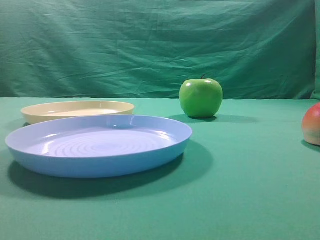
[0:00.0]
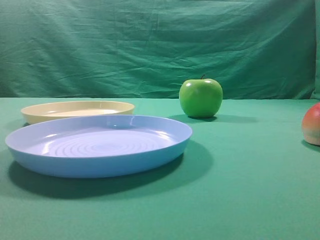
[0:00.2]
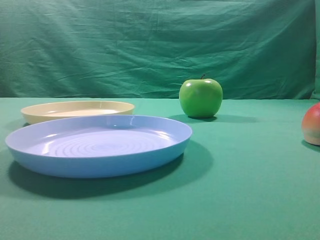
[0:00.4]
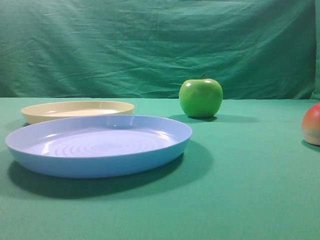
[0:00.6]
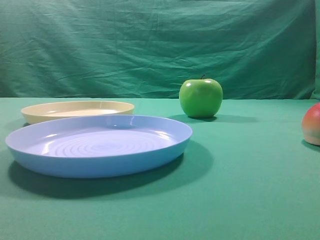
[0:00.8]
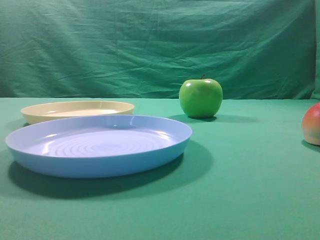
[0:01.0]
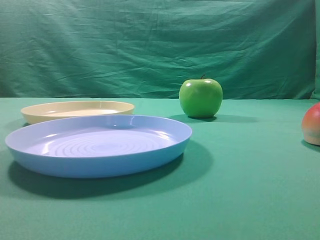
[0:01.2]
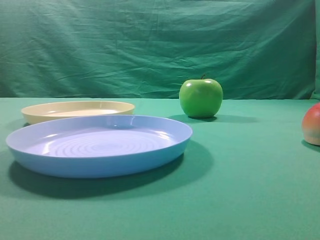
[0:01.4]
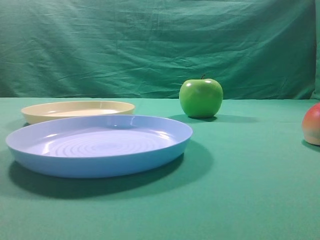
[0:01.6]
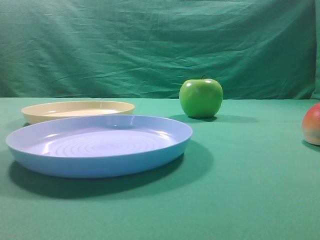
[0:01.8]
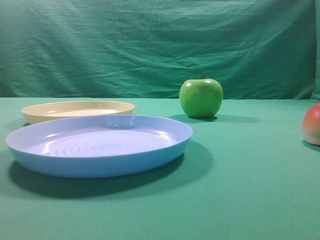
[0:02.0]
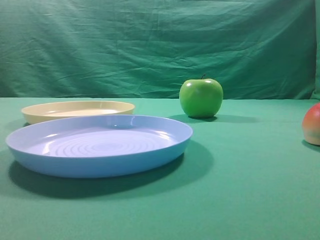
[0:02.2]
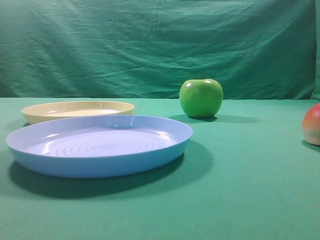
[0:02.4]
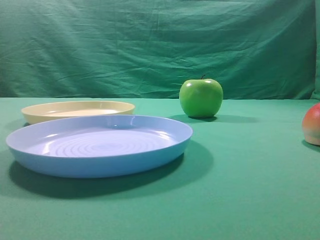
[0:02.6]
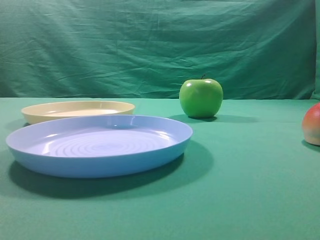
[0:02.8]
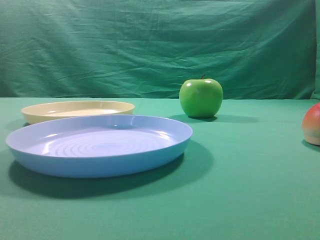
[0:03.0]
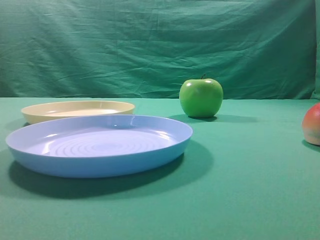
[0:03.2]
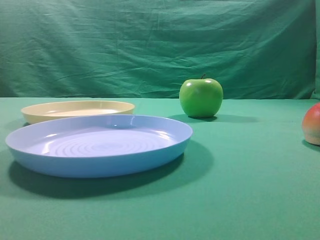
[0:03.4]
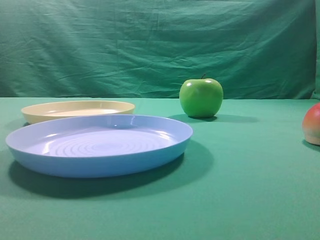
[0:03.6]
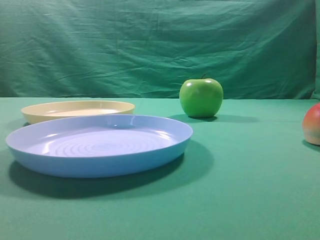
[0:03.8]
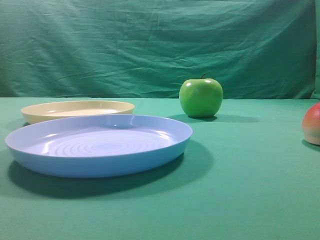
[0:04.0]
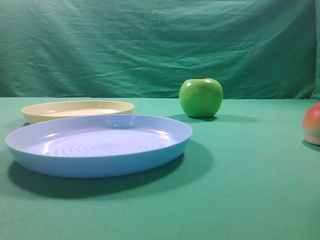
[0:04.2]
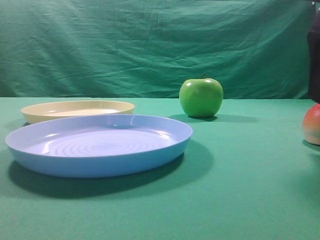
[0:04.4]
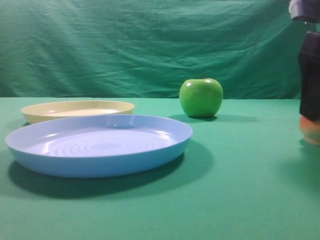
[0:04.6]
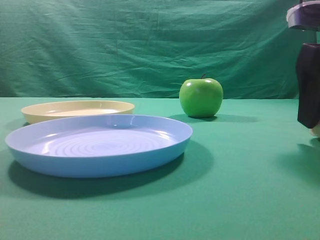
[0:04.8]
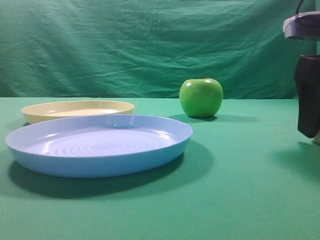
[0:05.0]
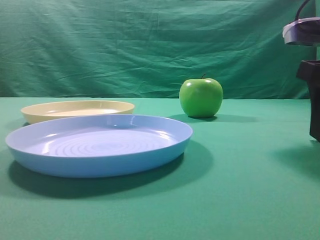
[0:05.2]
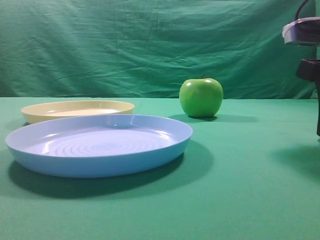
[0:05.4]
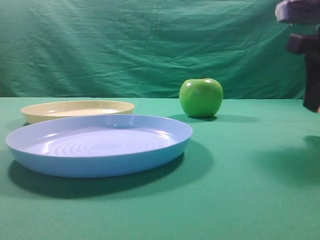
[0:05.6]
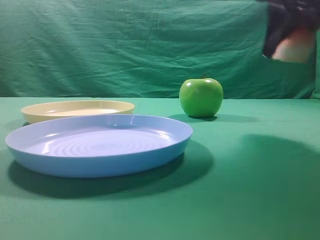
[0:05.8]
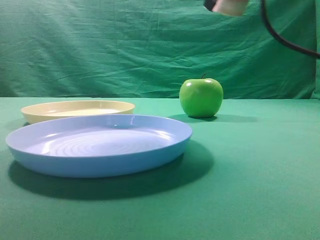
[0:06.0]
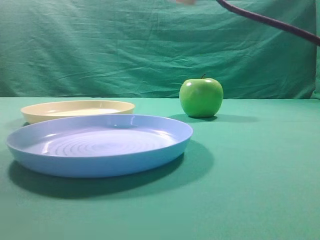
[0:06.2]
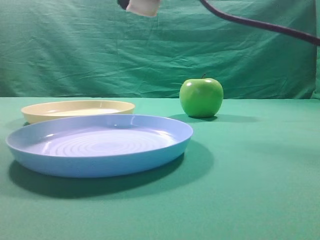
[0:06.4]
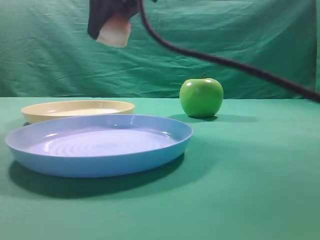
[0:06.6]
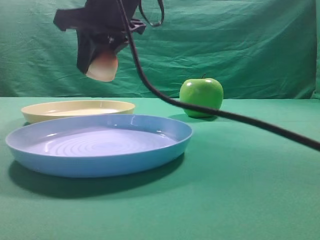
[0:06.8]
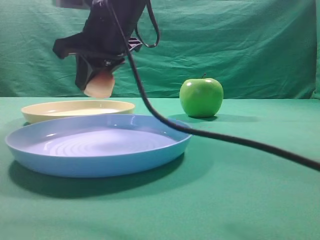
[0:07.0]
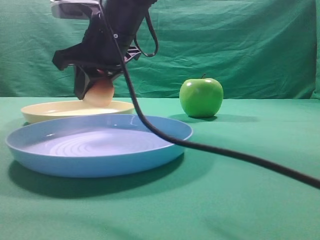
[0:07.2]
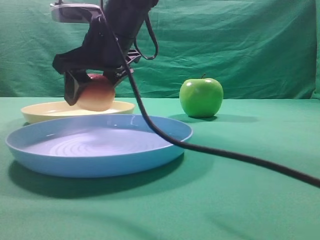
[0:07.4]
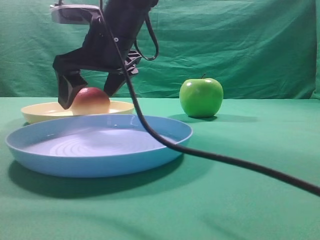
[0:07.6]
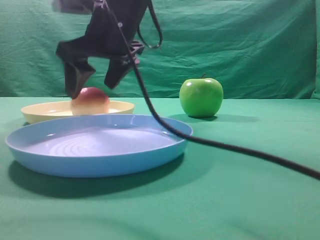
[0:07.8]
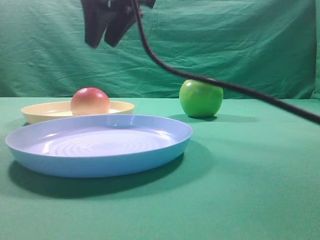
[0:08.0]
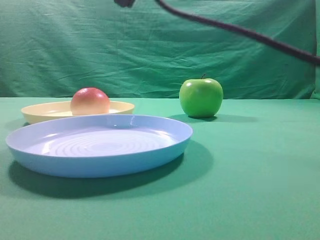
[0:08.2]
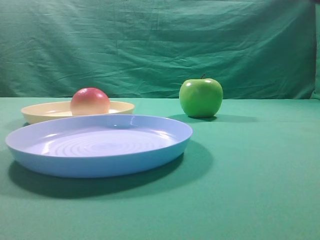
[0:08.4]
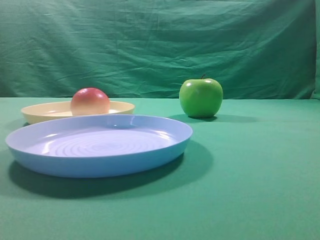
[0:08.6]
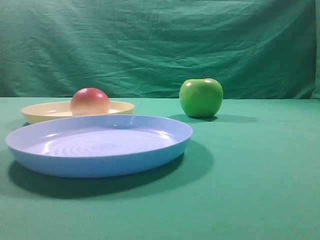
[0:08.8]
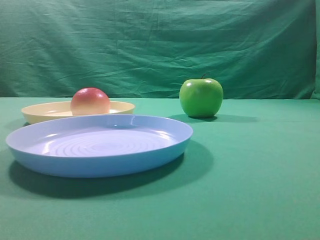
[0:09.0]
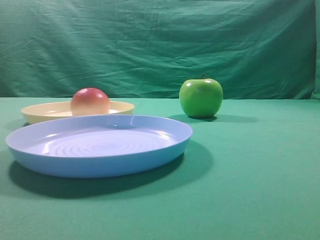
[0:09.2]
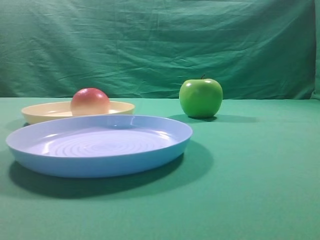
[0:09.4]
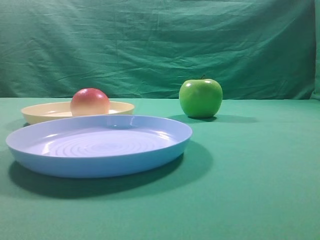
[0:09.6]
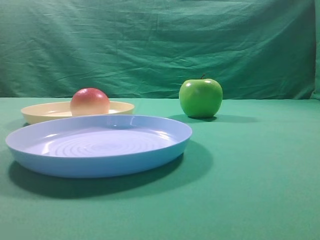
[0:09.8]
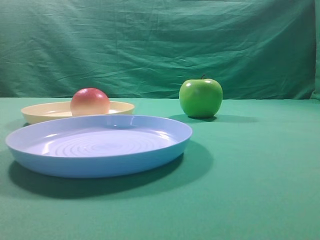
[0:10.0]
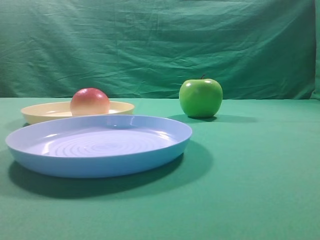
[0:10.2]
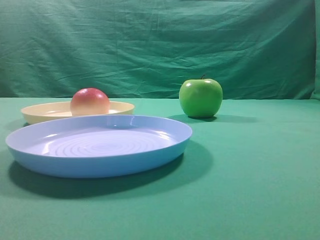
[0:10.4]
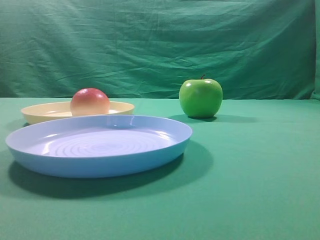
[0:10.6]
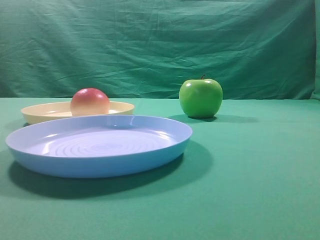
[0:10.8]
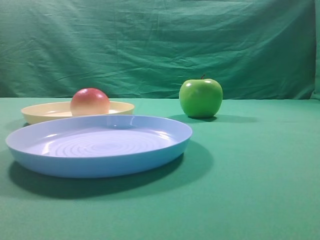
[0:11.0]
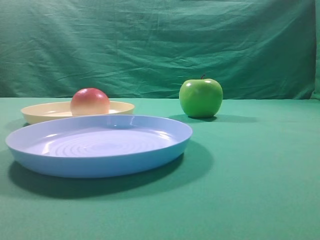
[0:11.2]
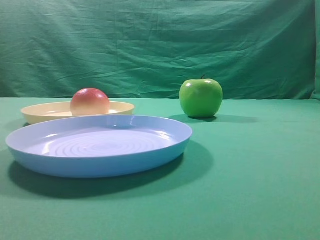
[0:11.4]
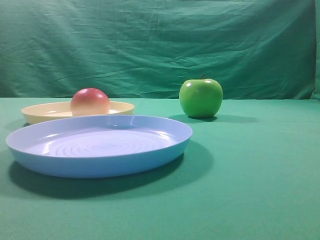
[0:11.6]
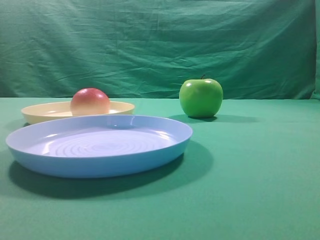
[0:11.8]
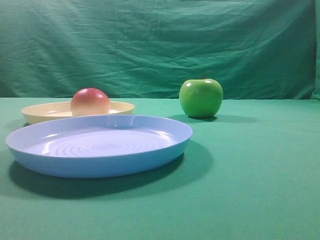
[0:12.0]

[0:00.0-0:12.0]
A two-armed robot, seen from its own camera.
Step, 0:05.8 to 0:07.8: Place the picked object on the yellow plate.

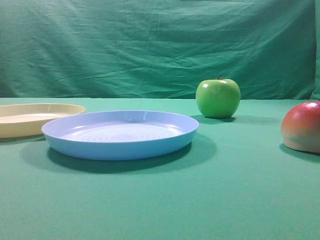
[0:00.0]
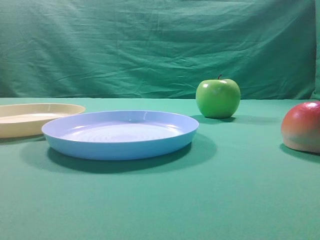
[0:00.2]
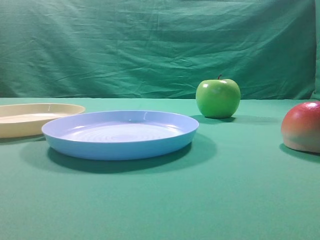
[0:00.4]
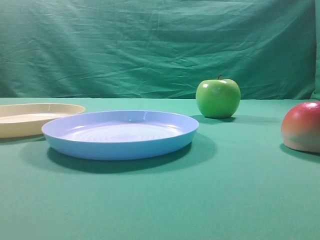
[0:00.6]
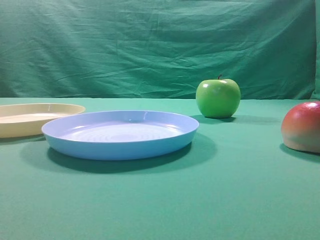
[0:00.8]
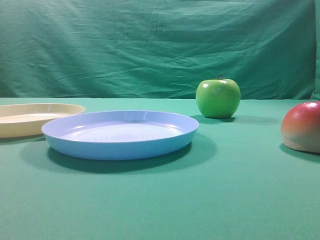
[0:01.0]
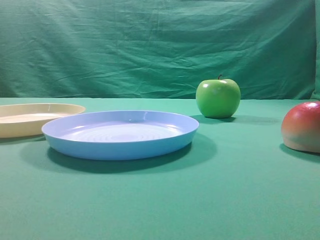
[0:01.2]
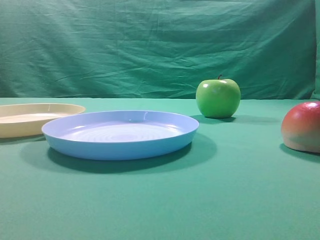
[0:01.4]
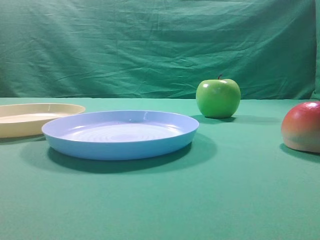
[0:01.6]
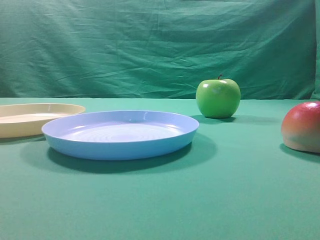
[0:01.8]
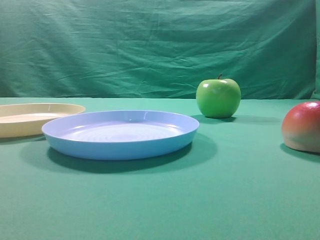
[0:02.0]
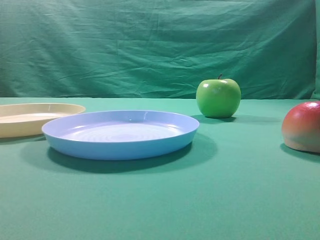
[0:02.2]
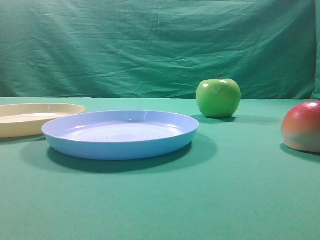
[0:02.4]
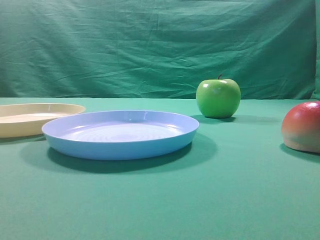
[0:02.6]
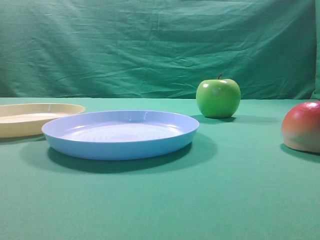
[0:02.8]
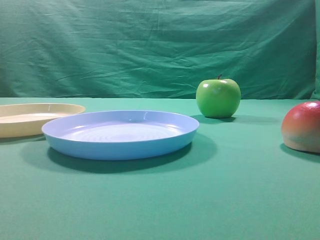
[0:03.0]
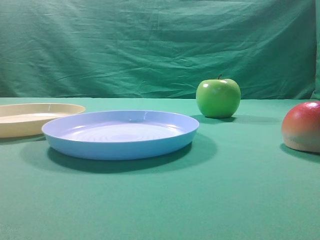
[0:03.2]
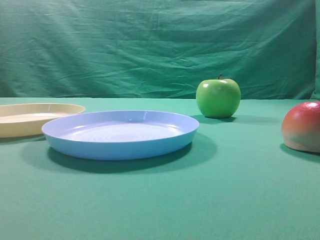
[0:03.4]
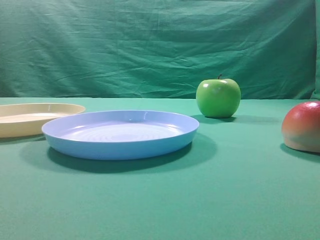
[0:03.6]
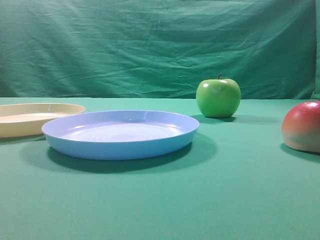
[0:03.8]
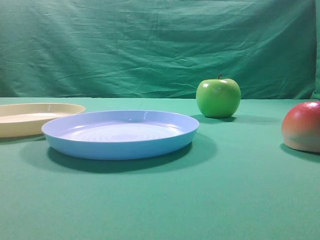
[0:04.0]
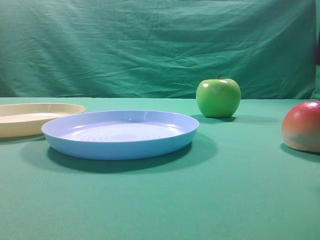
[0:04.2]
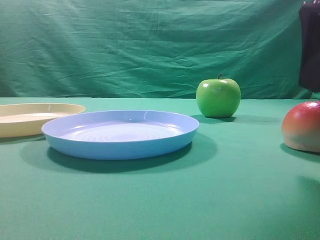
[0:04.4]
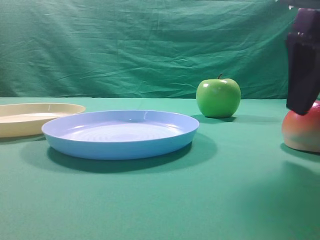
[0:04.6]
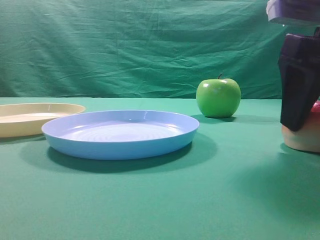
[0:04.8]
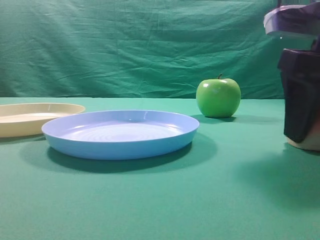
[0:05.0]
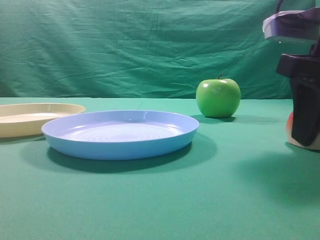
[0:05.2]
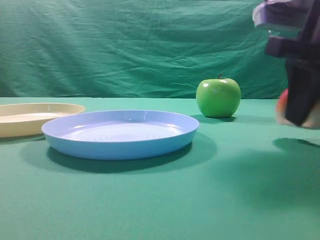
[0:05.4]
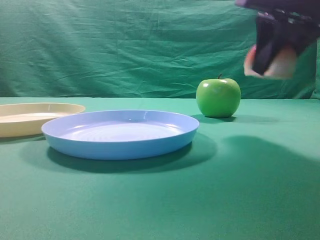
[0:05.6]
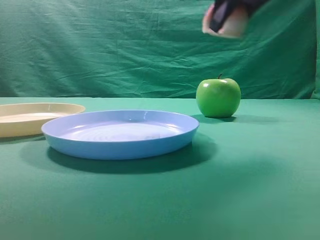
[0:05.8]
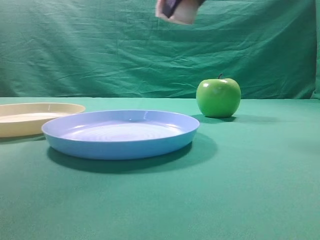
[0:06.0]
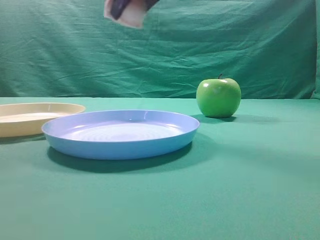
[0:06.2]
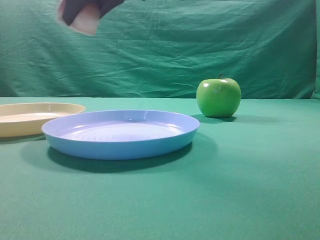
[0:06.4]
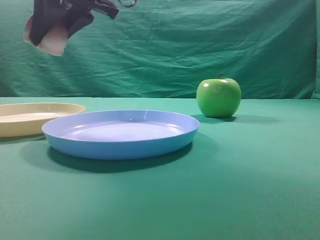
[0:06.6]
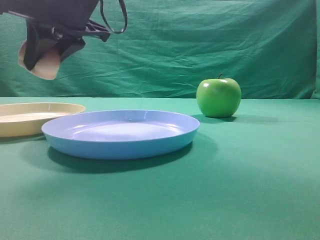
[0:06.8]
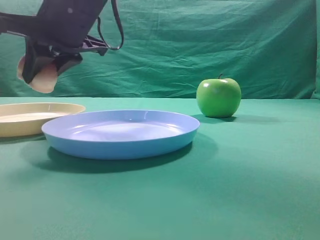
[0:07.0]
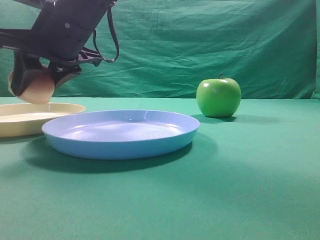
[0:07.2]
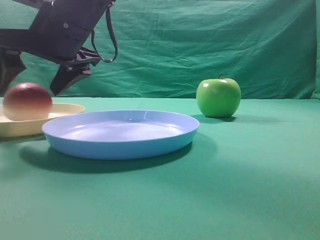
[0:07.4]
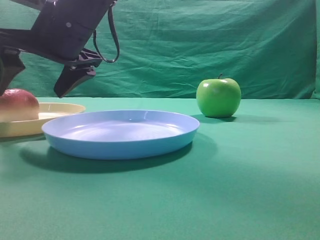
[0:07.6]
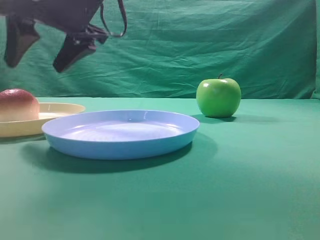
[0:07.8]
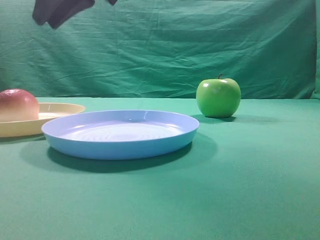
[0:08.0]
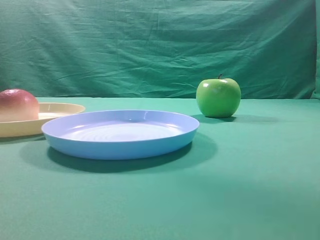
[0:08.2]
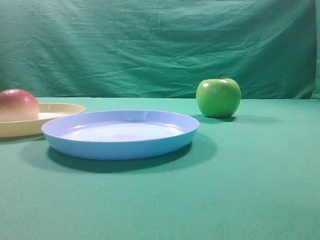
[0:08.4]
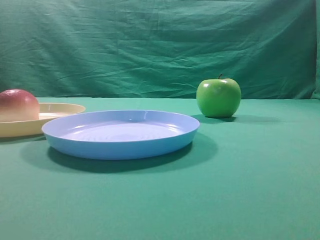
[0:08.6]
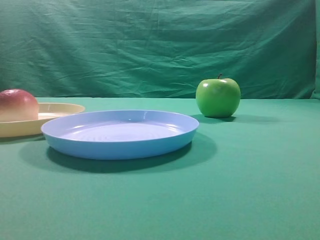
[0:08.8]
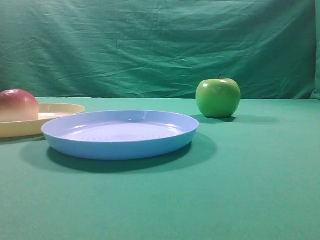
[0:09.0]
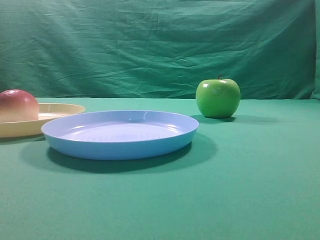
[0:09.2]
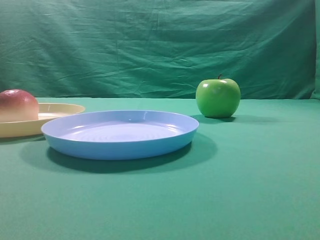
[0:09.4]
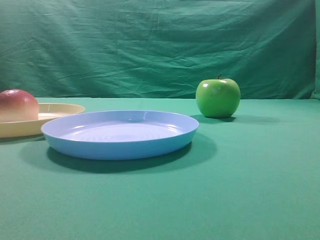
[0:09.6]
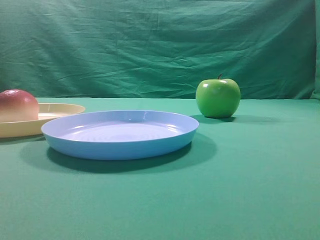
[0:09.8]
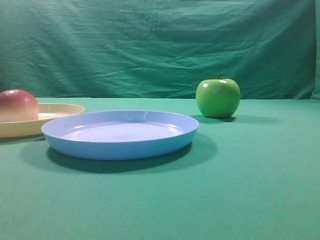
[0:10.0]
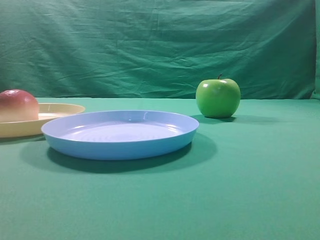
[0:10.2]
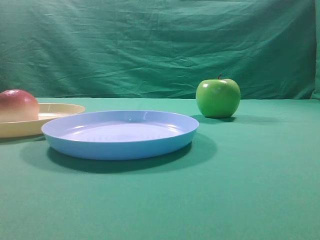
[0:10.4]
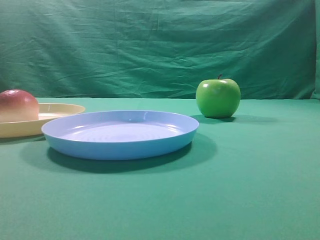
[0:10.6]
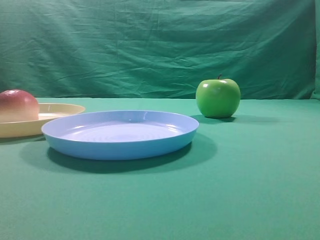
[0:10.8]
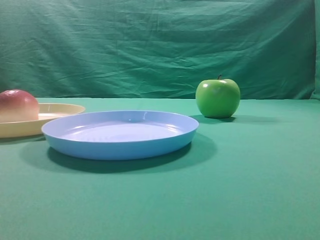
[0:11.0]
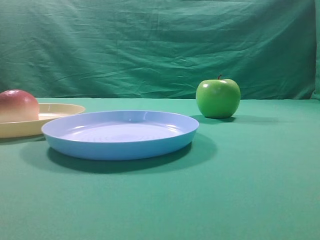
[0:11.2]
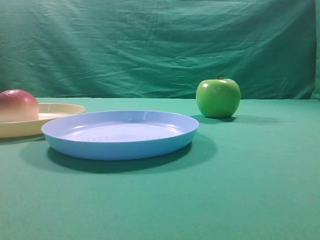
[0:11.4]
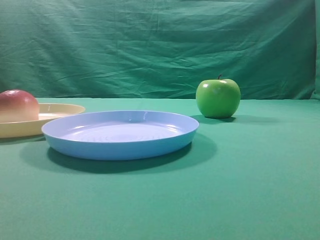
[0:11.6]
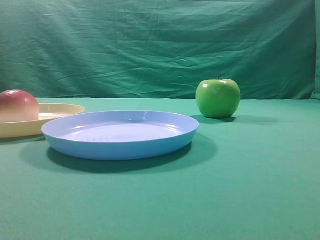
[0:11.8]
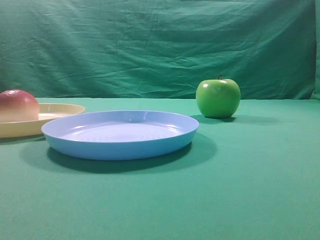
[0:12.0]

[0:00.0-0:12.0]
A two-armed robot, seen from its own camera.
Step, 0:05.6 to 0:07.8: Place the picked object on the yellow plate.
